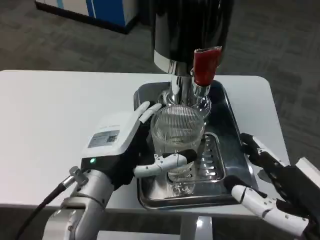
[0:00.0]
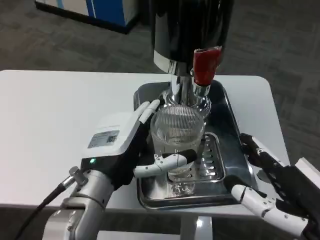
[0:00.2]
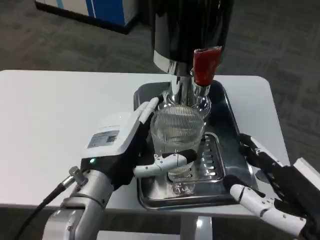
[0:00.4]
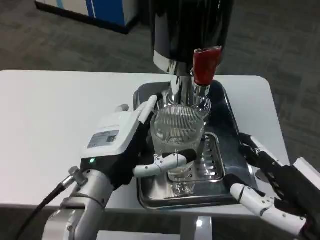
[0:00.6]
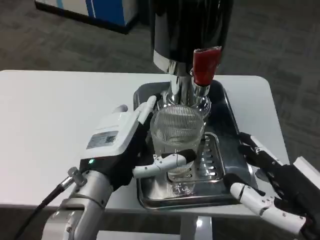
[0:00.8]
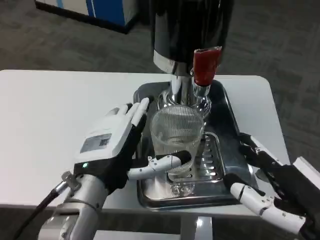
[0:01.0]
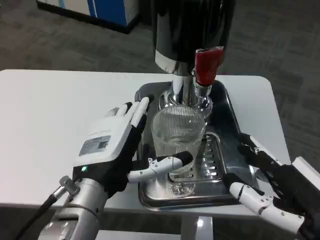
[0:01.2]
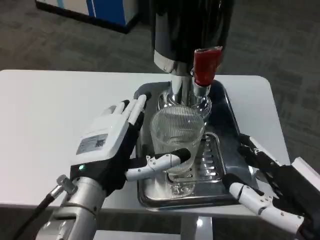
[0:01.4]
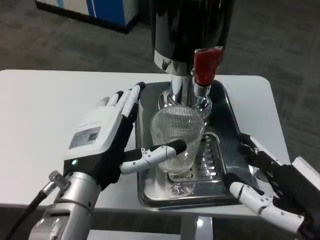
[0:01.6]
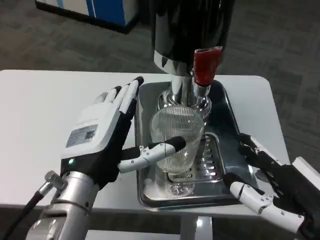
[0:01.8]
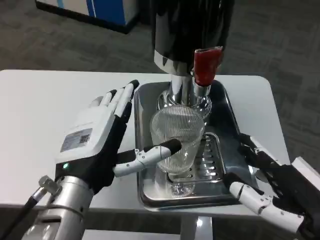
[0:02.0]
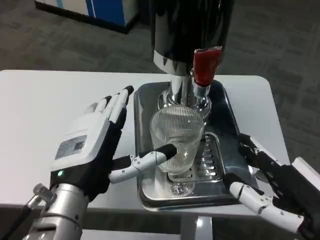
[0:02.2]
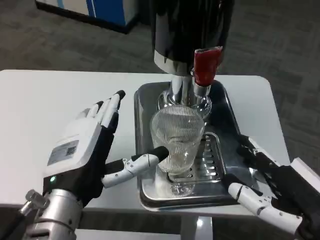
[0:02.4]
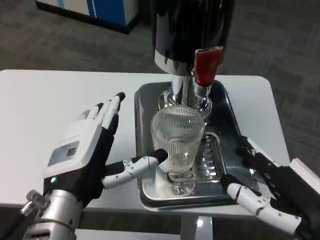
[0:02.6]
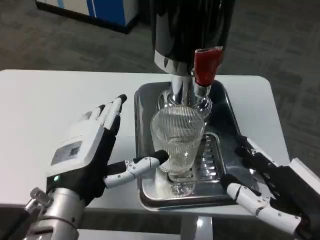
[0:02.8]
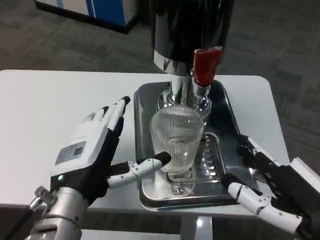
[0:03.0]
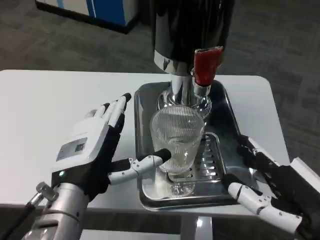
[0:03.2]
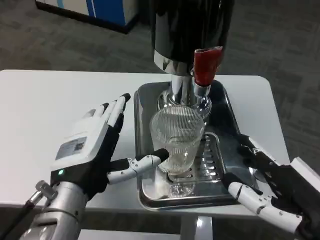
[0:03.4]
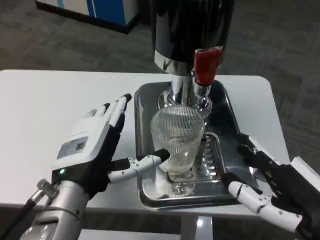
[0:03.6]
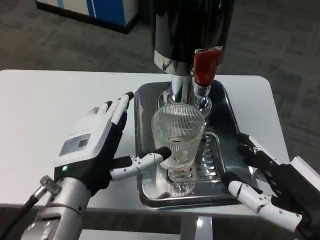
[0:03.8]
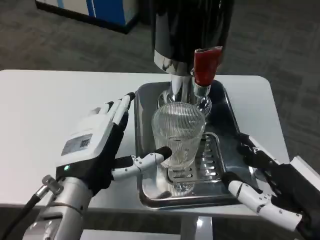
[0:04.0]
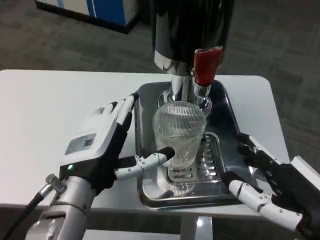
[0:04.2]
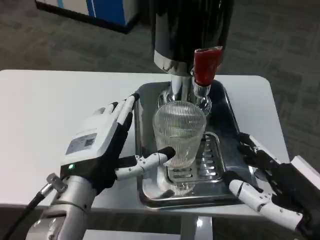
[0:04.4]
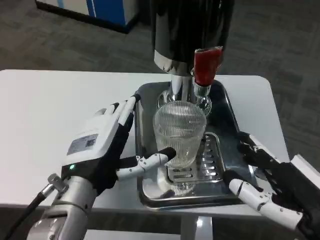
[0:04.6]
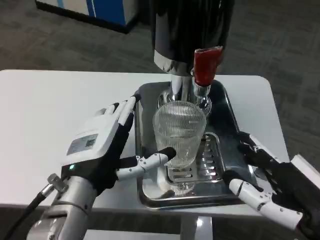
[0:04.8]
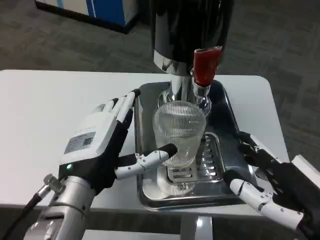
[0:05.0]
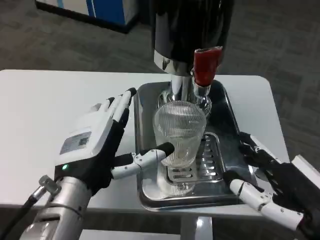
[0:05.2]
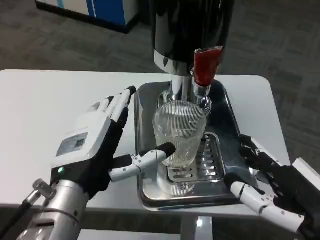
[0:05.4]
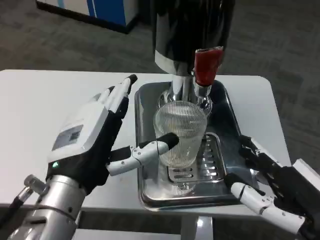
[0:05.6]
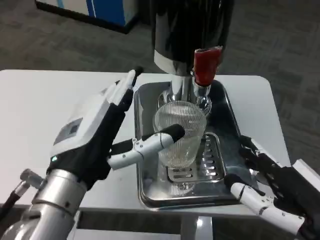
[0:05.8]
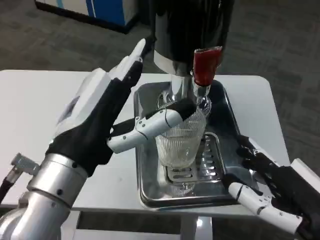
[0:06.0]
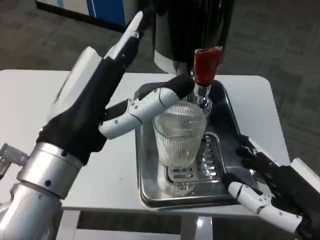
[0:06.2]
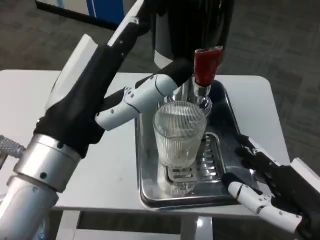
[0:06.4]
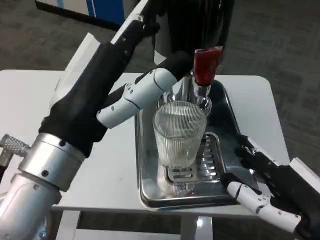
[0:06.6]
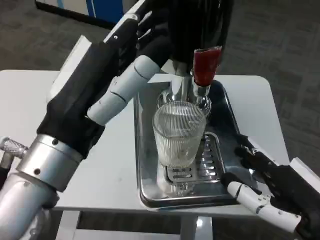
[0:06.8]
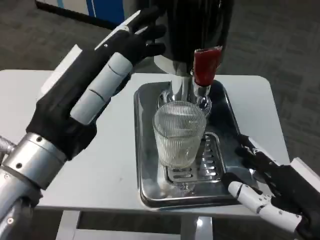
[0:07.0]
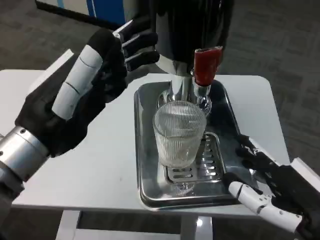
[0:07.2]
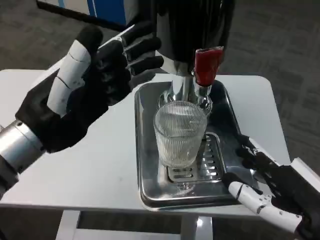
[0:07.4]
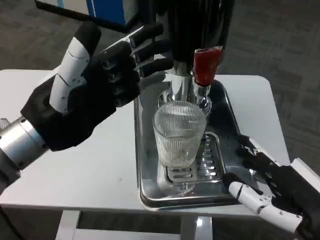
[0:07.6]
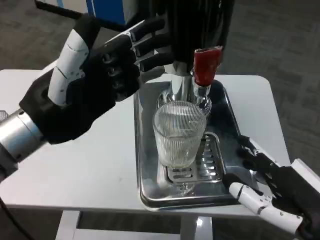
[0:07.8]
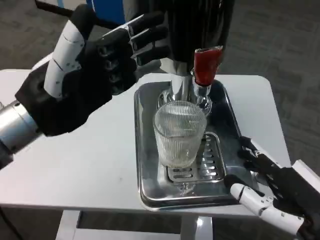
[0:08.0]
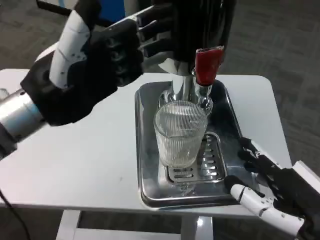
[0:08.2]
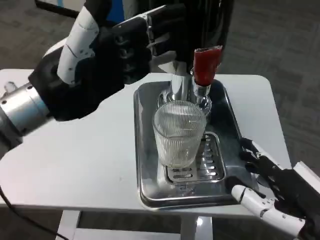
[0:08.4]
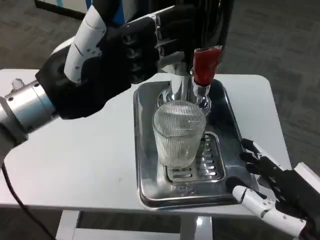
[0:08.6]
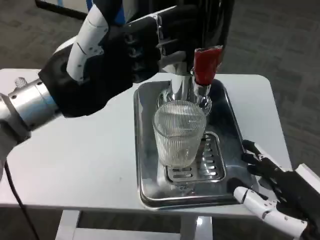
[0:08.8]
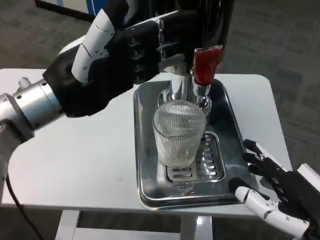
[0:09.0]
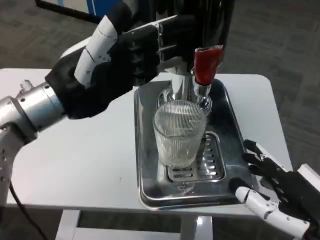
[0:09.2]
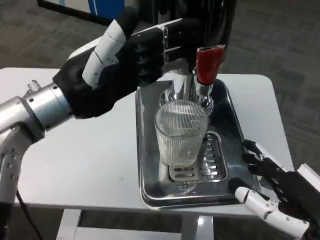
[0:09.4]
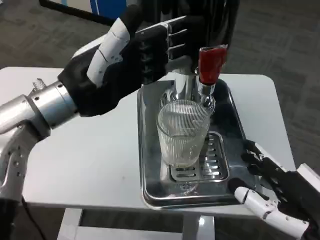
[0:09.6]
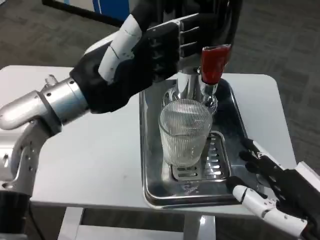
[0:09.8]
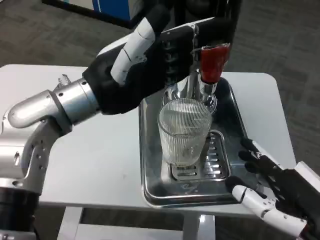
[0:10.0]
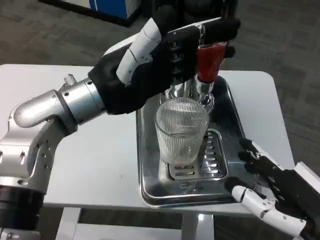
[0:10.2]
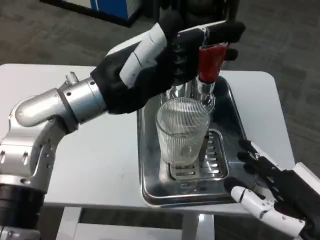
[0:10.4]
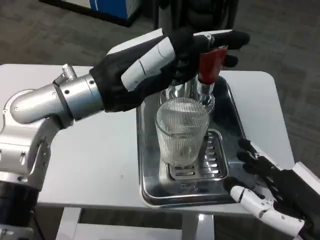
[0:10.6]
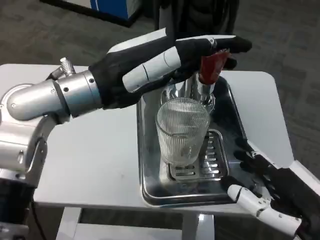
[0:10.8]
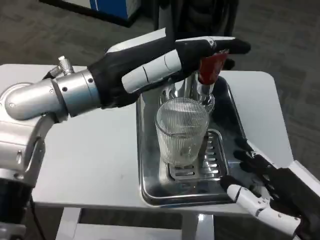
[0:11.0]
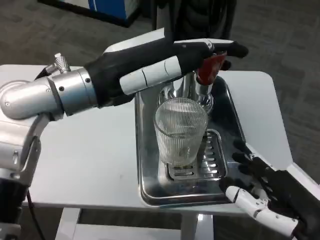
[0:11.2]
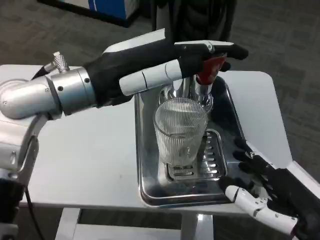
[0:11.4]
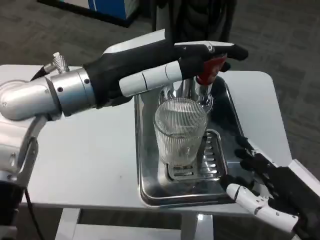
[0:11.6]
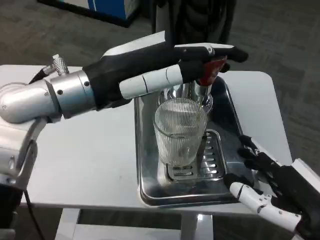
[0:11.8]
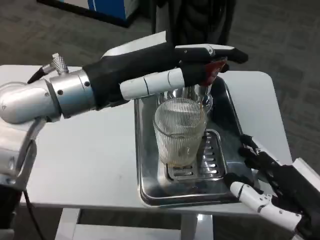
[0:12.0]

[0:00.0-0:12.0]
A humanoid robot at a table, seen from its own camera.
Task of the whole recording: Grasp the cup under the faucet to collect the drink, then remove the cup.
0:00.0 to 0:04.4: The hands stay close to where they were, moving slightly.
0:04.4 to 0:06.0: The left hand is displaced upward by roughly 5 cm.
0:06.0 to 0:07.6: The left hand is displaced to the left and forward by roughly 10 cm.
0:07.6 to 0:09.0: The left hand shifts by roughly 5 cm.
0:09.0 to 0:10.4: The left hand ends up some 5 cm from where it was.

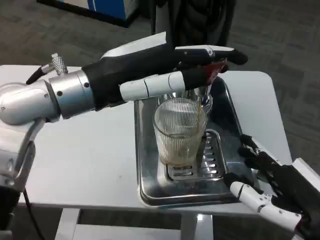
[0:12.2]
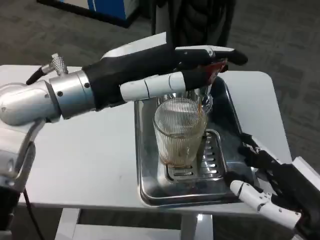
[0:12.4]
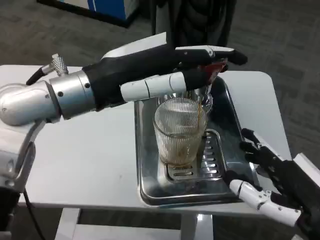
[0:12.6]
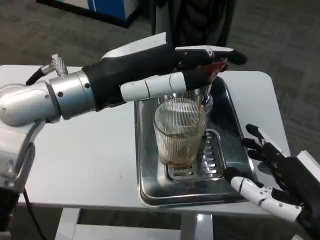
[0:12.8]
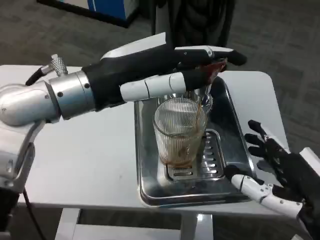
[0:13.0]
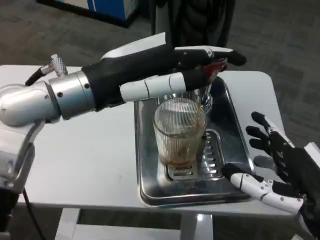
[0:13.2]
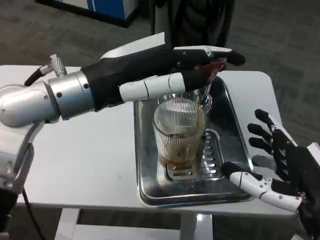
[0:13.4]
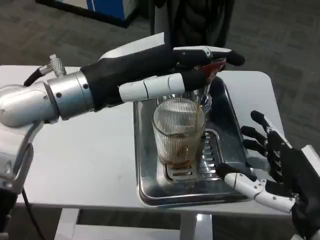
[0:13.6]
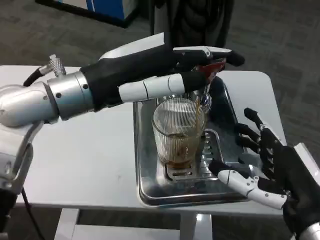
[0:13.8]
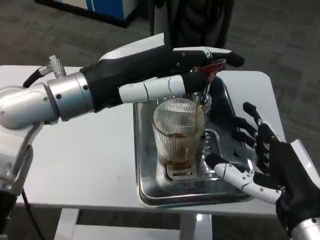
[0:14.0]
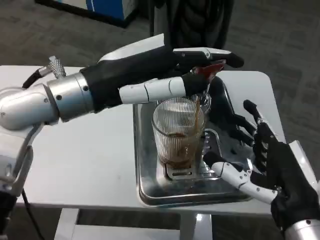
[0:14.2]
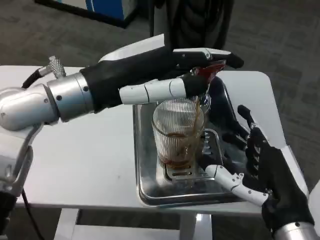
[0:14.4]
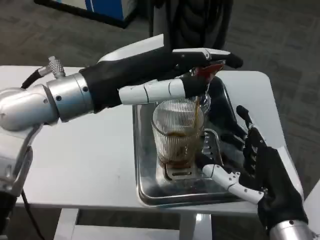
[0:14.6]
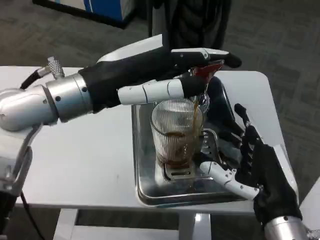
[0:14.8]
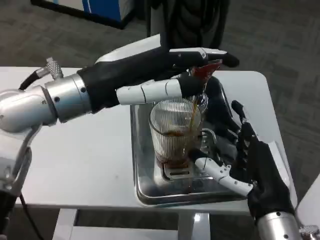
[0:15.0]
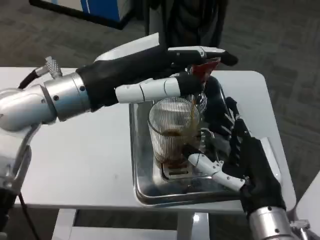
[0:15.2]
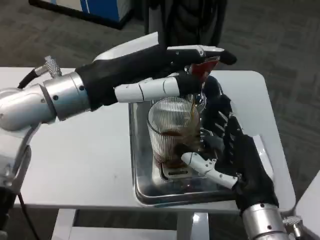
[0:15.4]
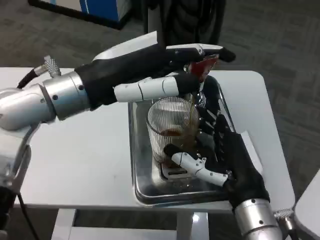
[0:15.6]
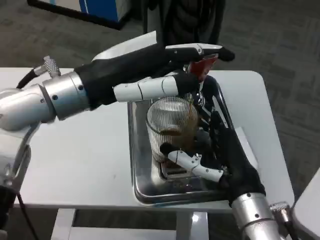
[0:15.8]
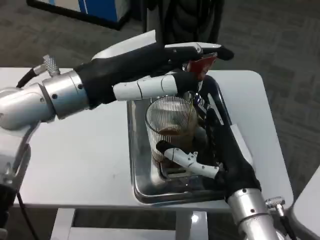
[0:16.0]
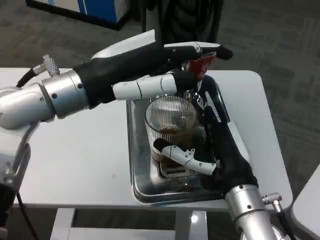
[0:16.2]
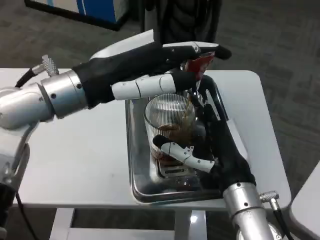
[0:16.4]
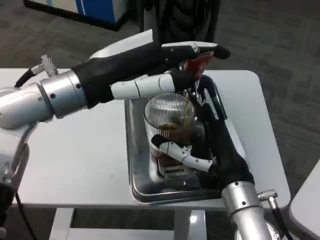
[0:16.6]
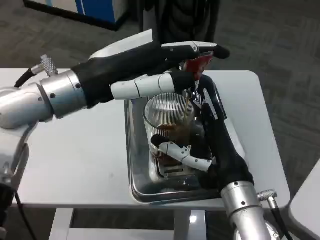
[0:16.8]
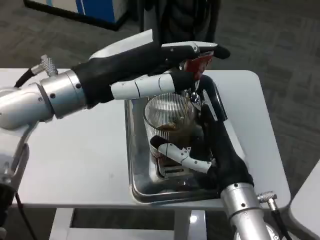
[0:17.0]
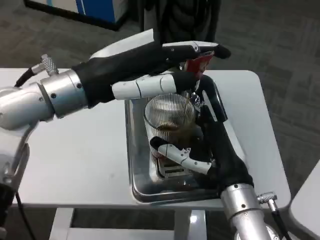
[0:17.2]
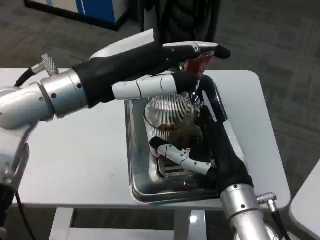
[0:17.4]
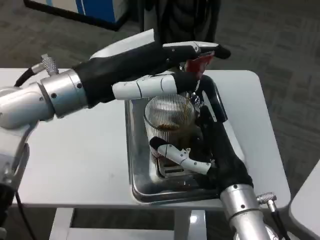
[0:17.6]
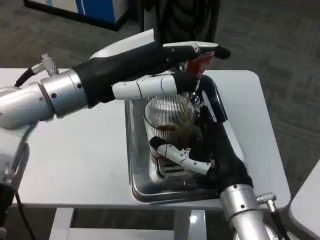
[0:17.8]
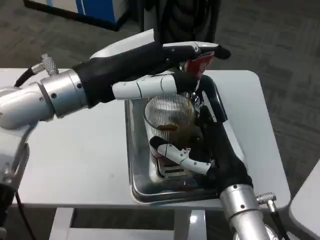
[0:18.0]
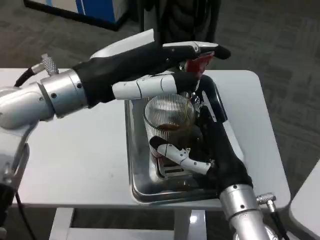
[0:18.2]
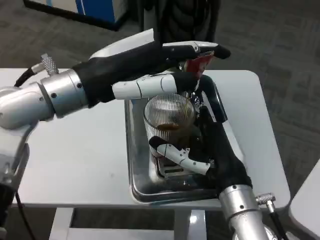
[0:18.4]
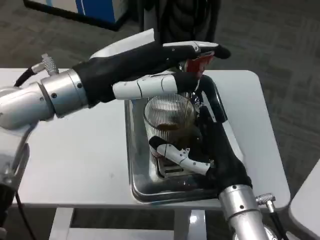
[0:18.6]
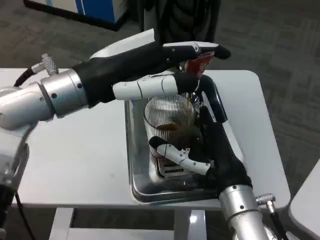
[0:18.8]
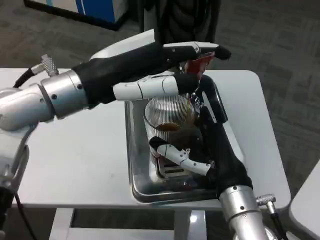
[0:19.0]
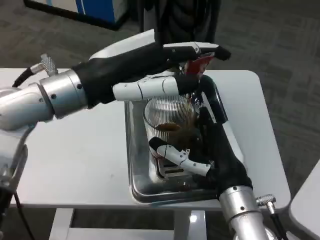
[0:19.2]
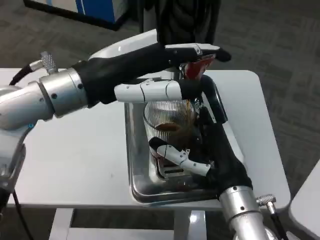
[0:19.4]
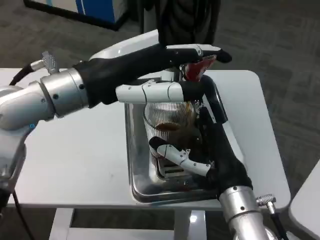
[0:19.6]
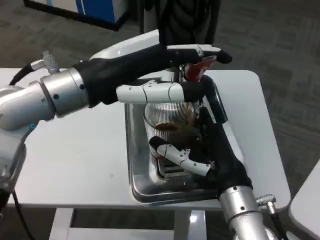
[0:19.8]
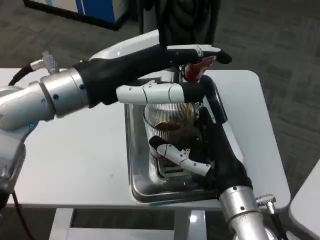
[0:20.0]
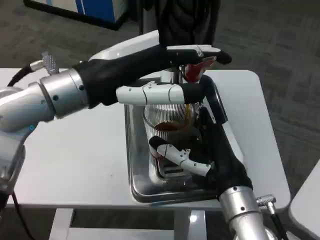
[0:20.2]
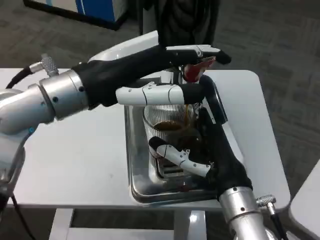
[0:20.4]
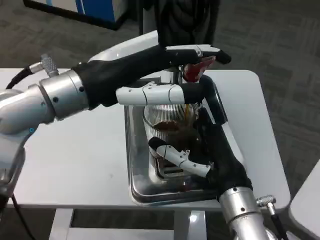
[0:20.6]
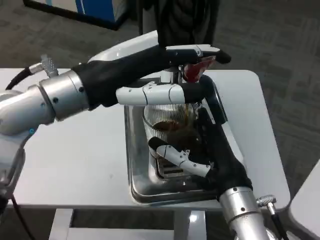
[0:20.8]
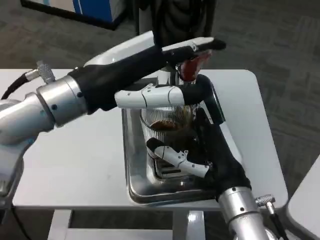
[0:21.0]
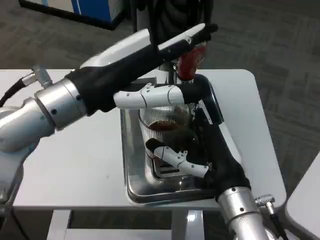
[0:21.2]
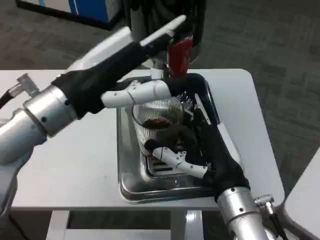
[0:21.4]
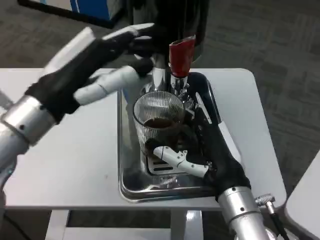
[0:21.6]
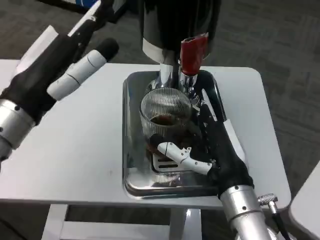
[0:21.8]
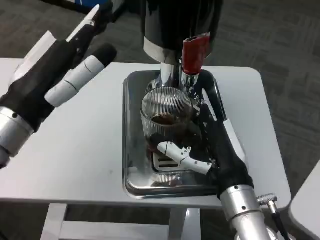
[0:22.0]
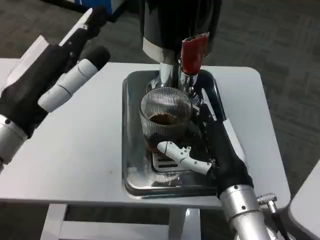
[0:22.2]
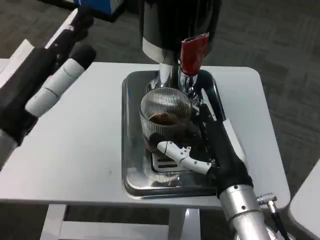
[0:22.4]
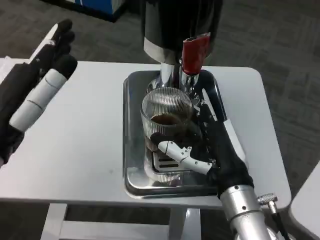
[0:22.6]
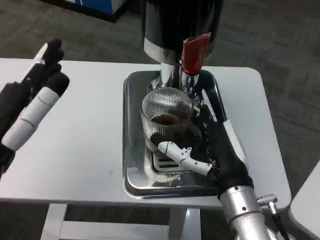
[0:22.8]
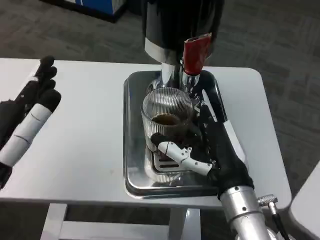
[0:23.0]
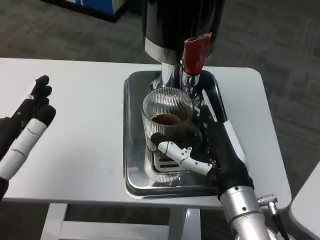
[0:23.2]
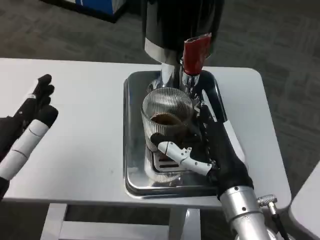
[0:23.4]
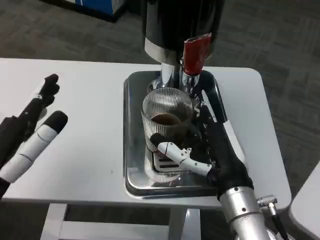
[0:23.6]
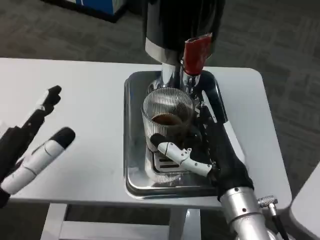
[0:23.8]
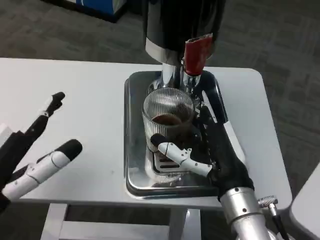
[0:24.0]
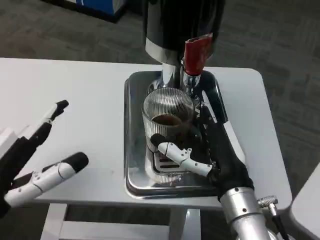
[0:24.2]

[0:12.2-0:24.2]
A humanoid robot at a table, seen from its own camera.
Task of the whole recording: Grasp the cup under the faucet to collect the drink, then remove the cup.
0:12.2 to 0:13.8: There are only small adjustments of the hands.
0:13.8 to 0:15.2: The right hand is displaced forward by some 5 cm.
0:16.6 to 0:18.2: Neither hand changes place.
0:18.2 to 0:19.8: The hands make only small movements.
0:21.2 to 0:22.6: The left hand travels backward, to the left and downward by about 10 cm.
0:22.6 to 0:24.2: The left hand ends up some 5 cm from where it was.
